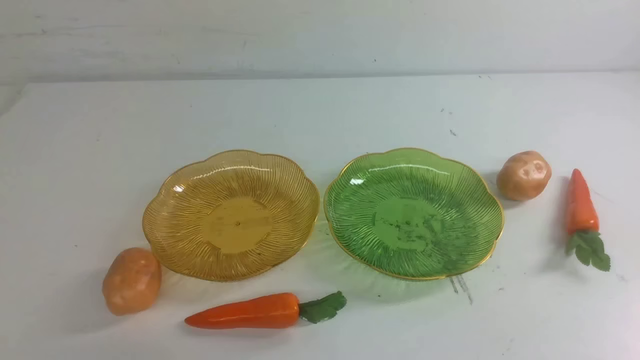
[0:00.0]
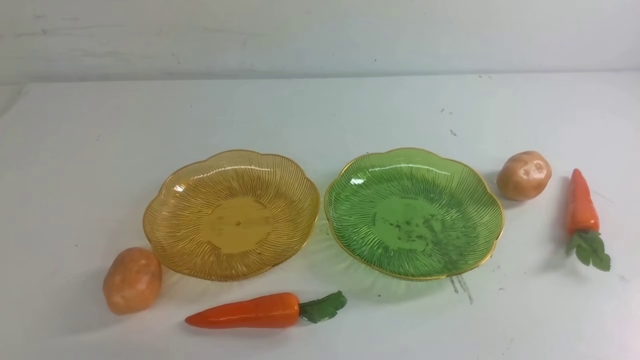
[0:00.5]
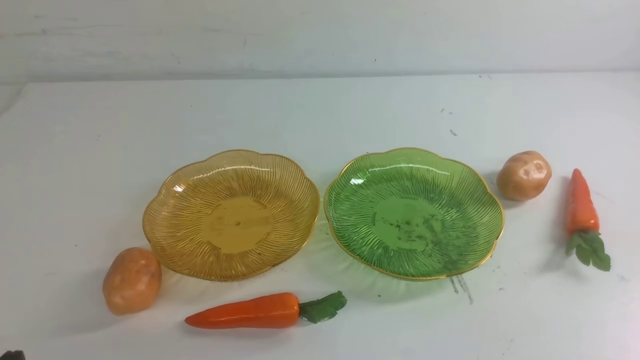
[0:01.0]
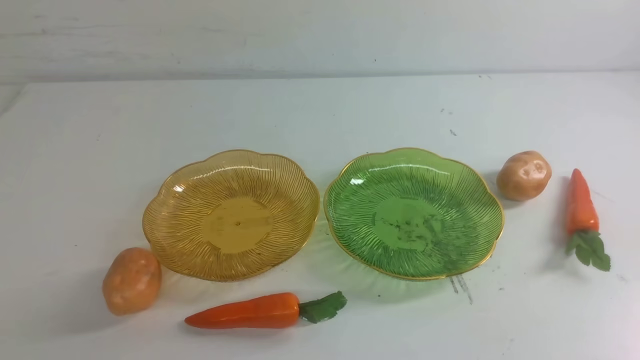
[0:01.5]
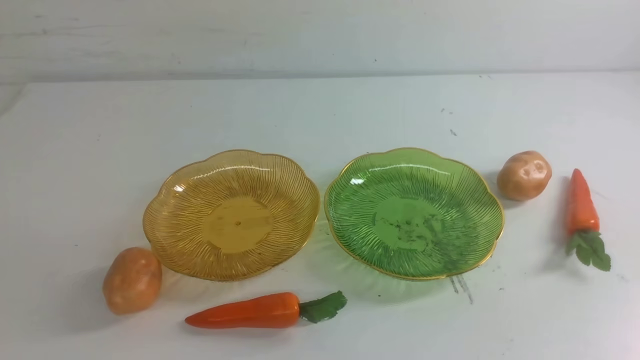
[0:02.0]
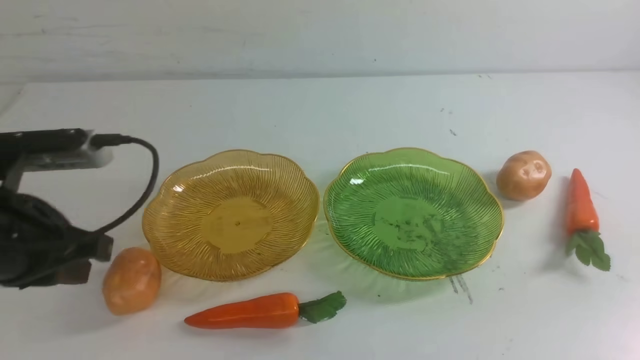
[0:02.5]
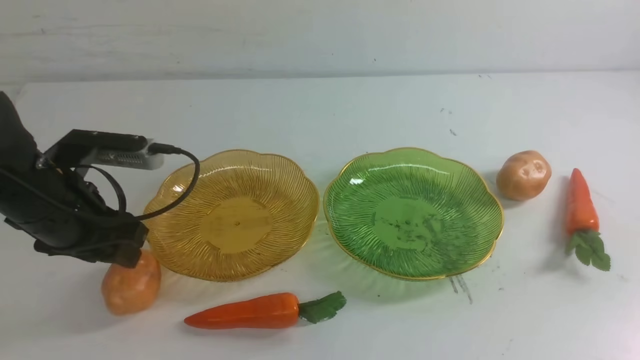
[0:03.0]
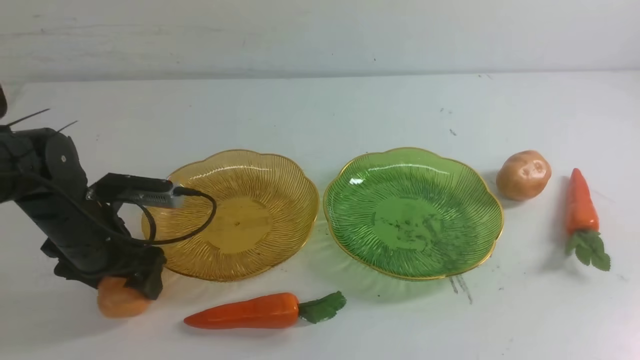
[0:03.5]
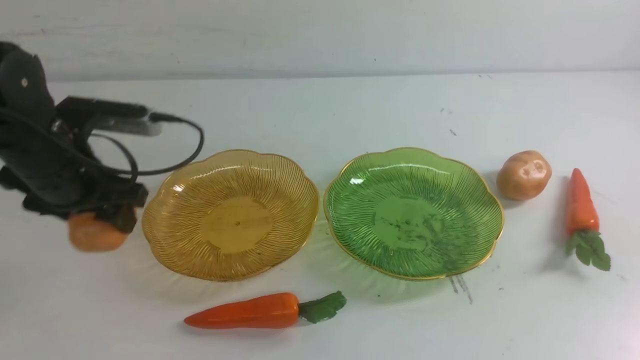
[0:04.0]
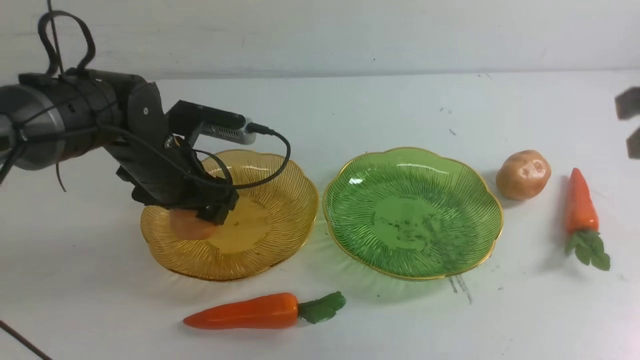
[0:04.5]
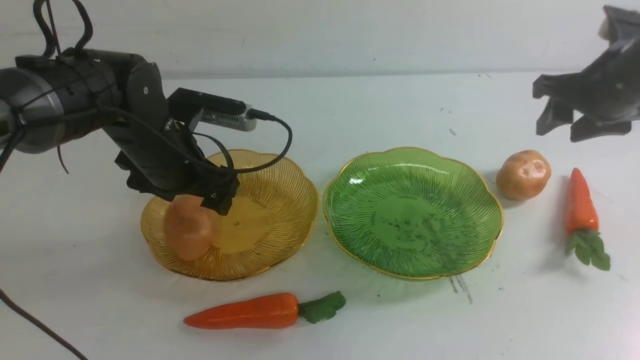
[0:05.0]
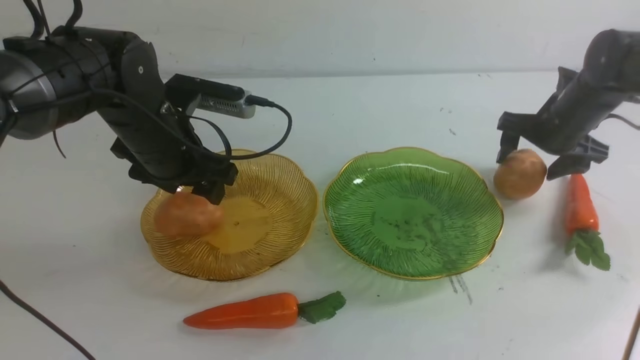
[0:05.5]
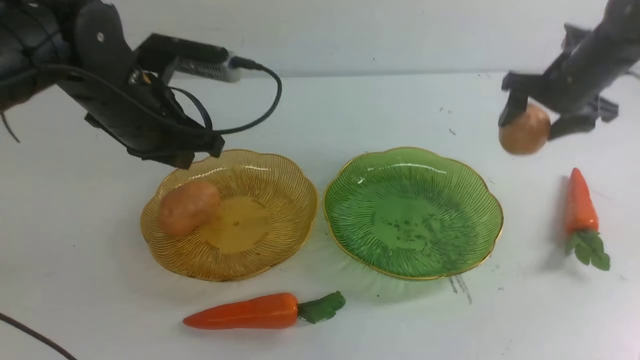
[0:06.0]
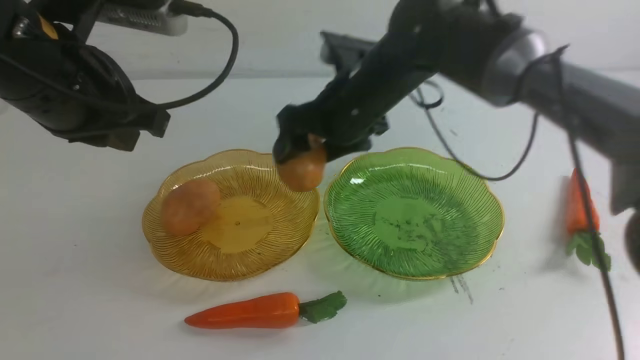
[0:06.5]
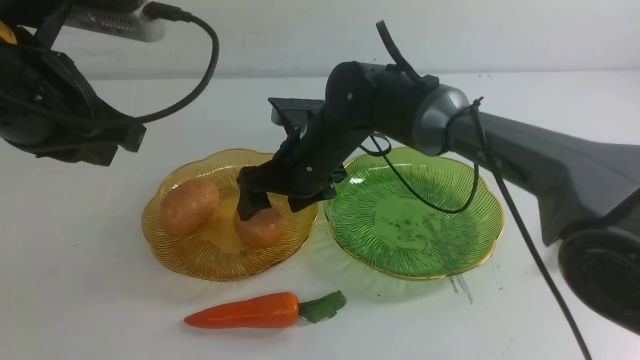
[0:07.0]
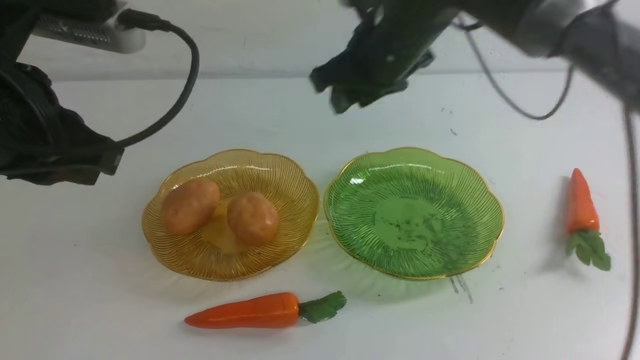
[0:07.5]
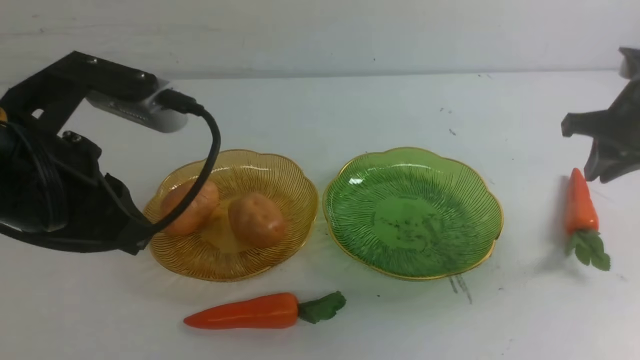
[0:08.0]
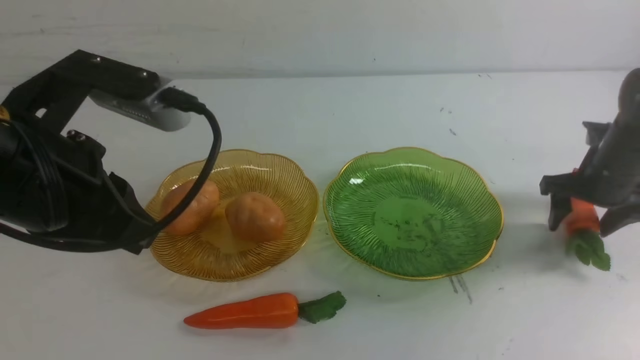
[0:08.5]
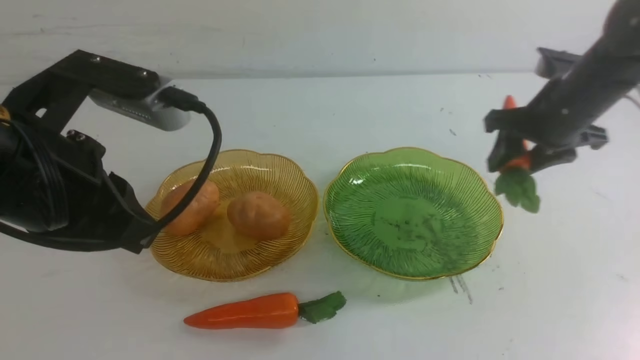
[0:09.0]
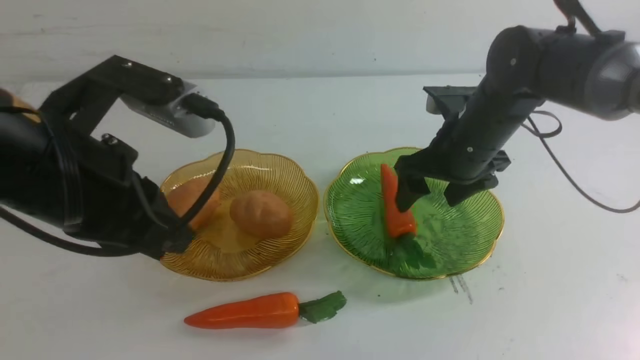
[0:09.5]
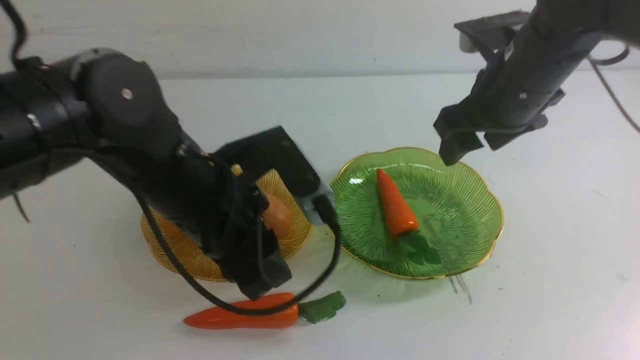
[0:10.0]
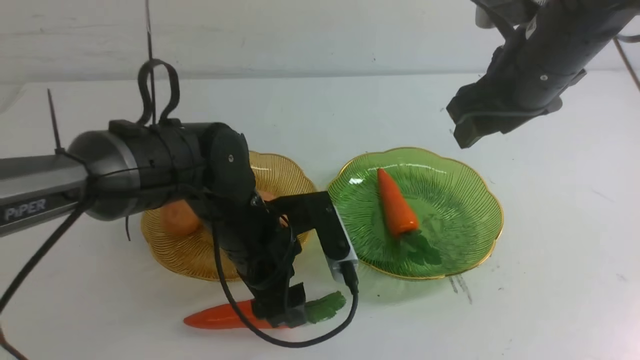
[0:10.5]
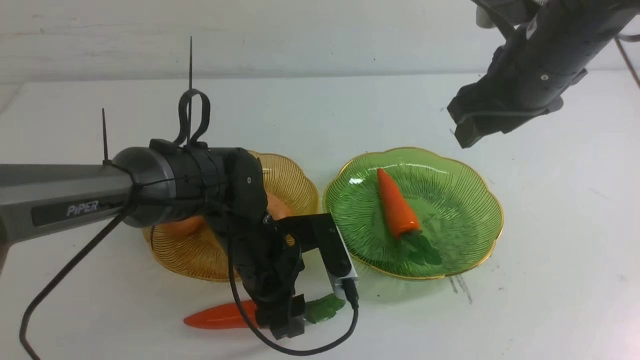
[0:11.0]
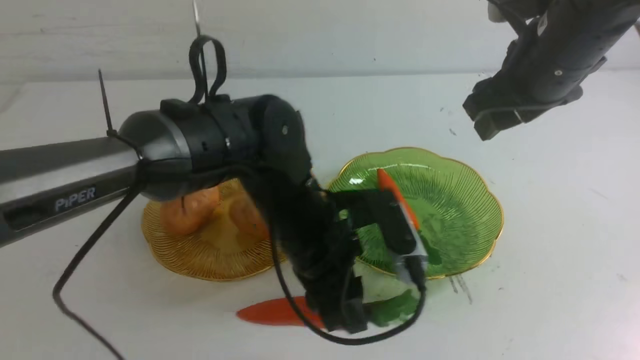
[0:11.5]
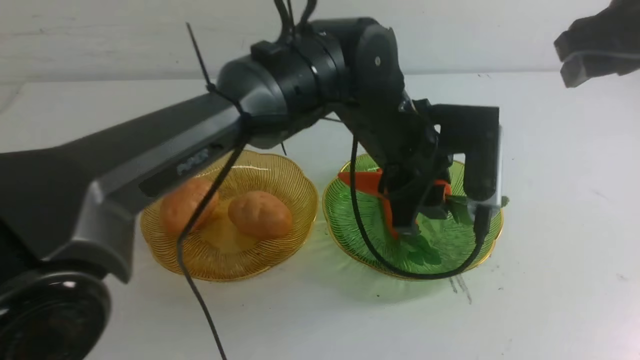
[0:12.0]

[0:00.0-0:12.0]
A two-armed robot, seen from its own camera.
Step, 0:00.0 to 0:04.5: Grab a potato with your left arm and put it on the left plate.
Step, 0:05.0 to 0:07.0: Grab a potato with your right arm and put it on the left plate.
Step, 0:07.5 to 0:09.0: use the right arm to grab a carrot and put it into the right plate.
0:02.0 to 0:04.0: The left gripper goes approximately 30 cm forward and downward, and opens.
0:04.0 to 0:06.0: The right gripper shifts roughly 30 cm to the left and forward, and opens its fingers; the left gripper travels upward and backward by about 20 cm, and closes up.
0:06.0 to 0:08.0: The right gripper moves to the right, approximately 30 cm, and closes, then reopens, while the left gripper goes approximately 5 cm backward.
0:08.0 to 0:10.0: The right gripper is displaced to the left and upward by about 20 cm. Meanwhile the left gripper is displaced downward, to the right and forward by approximately 15 cm, and opens.
0:10.0 to 0:12.0: The left gripper goes some 20 cm to the right and forward, and opens, then closes once more; the right gripper heads upward and to the right, covering approximately 10 cm.

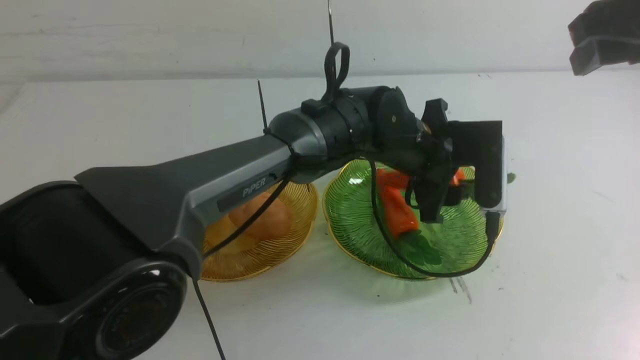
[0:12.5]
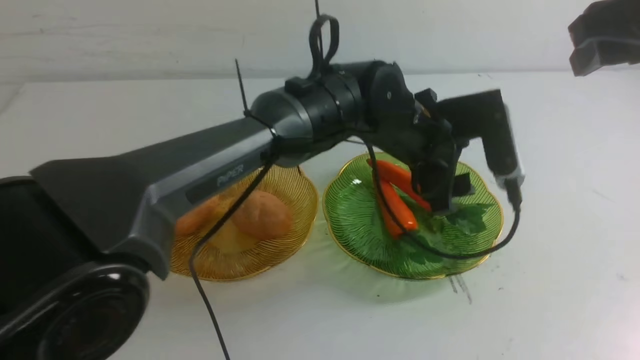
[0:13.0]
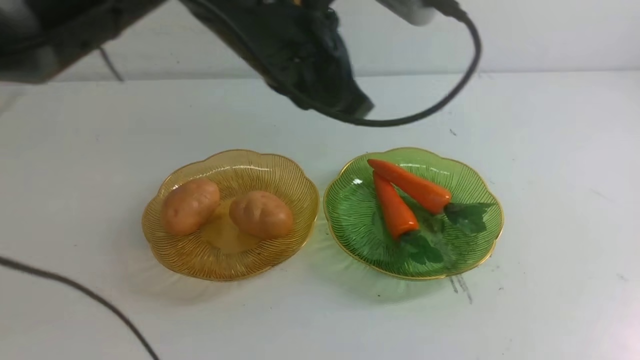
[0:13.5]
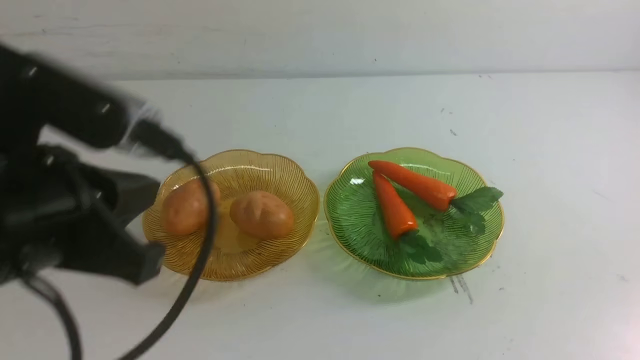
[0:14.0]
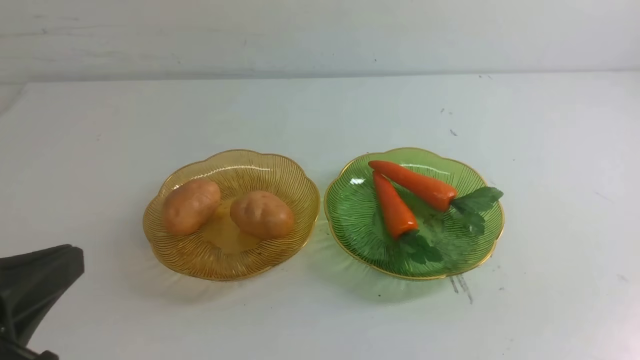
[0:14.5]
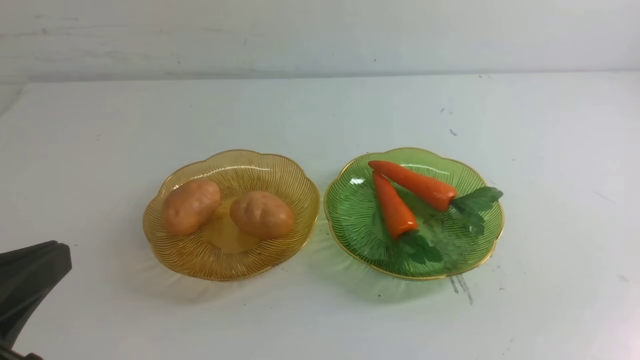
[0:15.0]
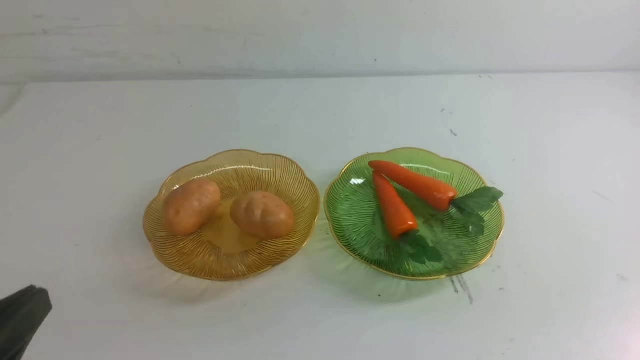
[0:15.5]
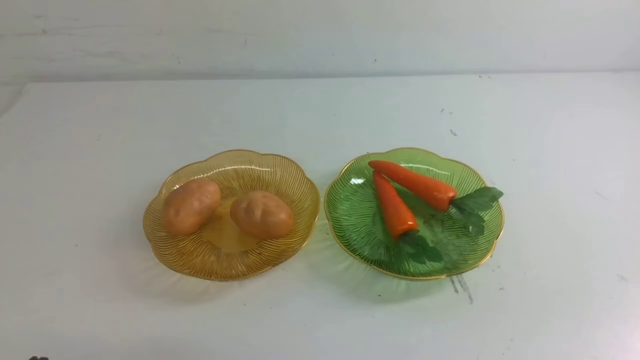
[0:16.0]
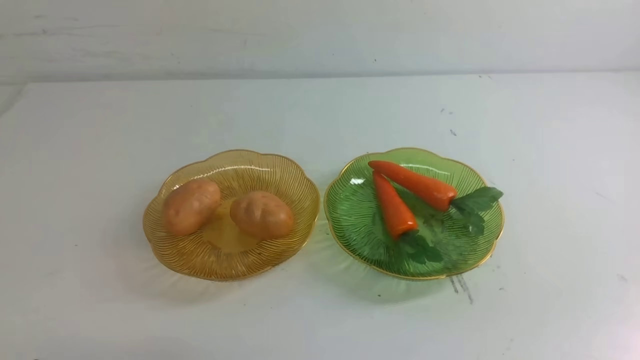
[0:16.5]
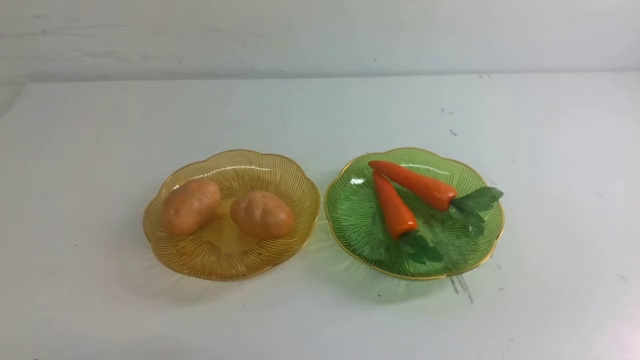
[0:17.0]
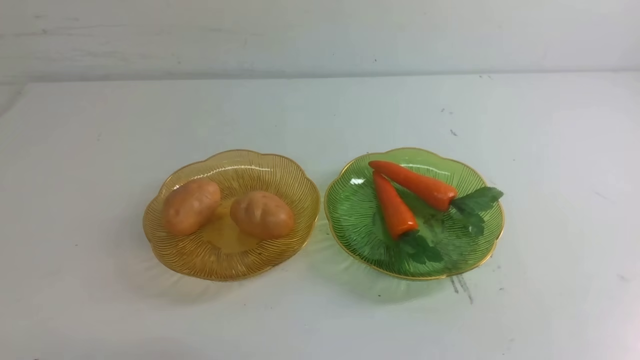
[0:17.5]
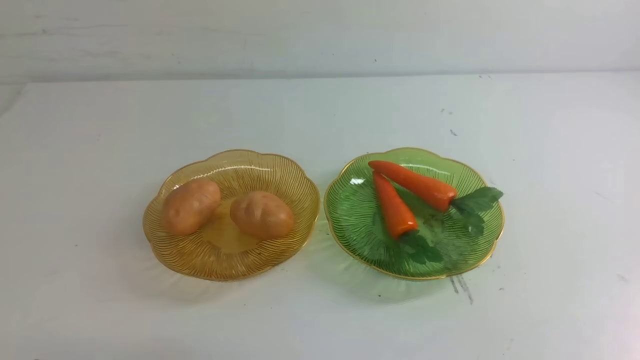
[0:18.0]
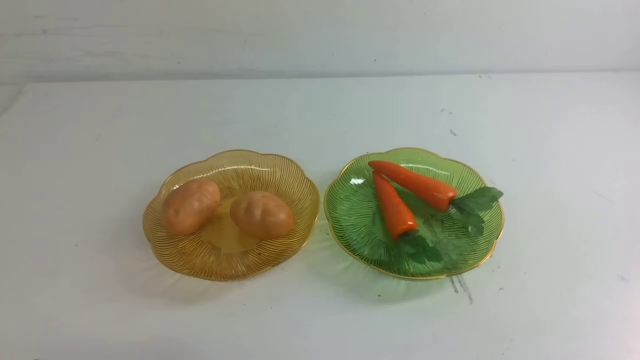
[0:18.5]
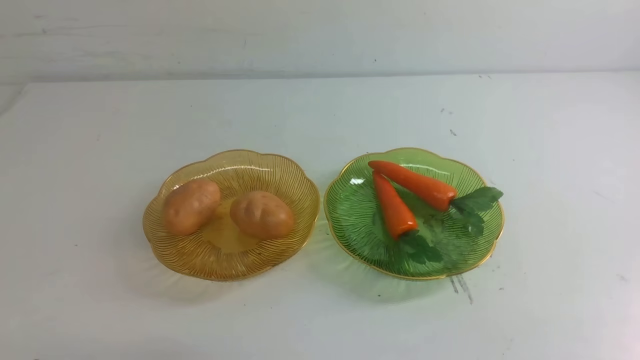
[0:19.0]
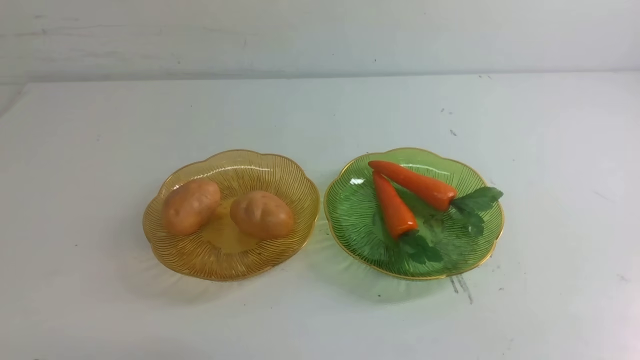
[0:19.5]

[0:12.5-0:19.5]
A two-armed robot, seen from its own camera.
0:12.5 to 0:14.5: The left gripper travels to the left and backward by some 40 cm, and closes its fingers; the right gripper heads backward, covering about 30 cm, and closes its fingers.
0:14.5 to 0:16.0: The left gripper moves downward, roughly 15 cm.
